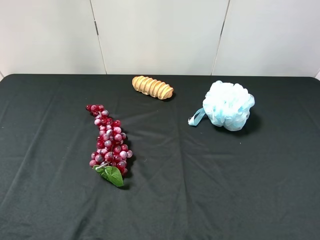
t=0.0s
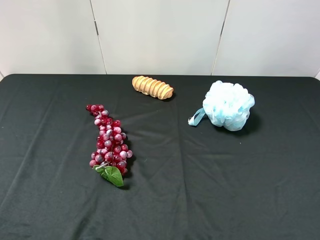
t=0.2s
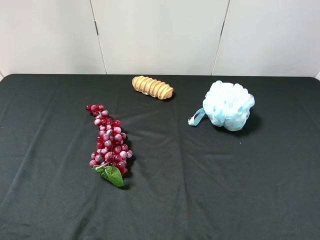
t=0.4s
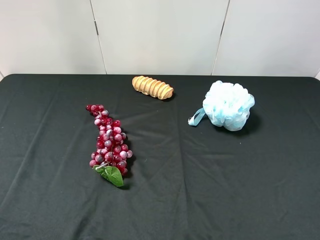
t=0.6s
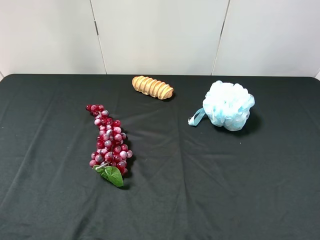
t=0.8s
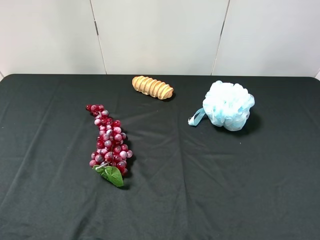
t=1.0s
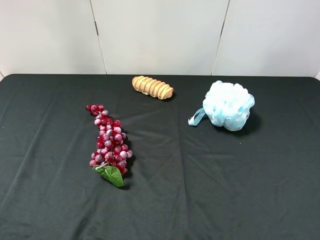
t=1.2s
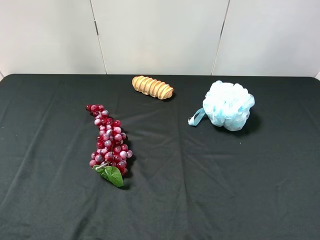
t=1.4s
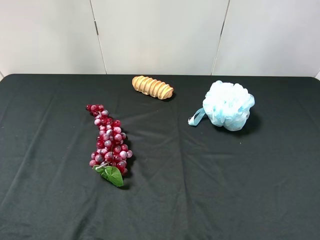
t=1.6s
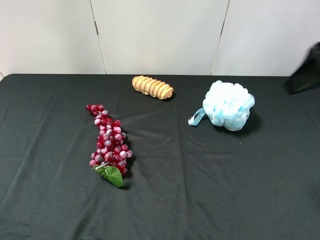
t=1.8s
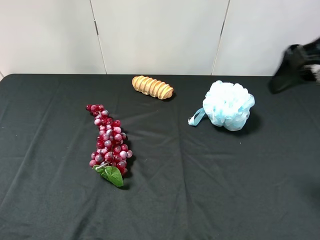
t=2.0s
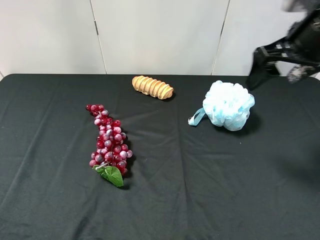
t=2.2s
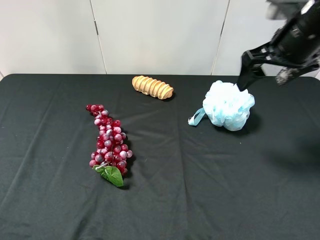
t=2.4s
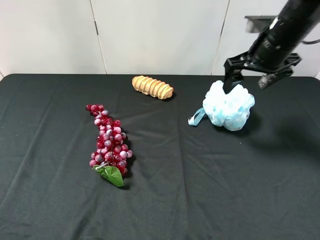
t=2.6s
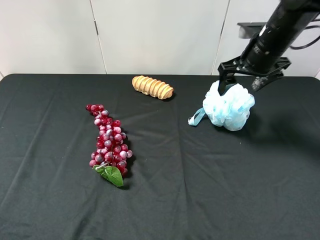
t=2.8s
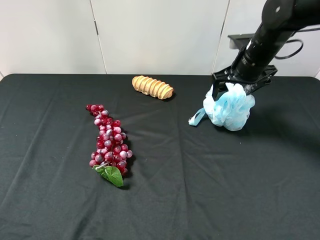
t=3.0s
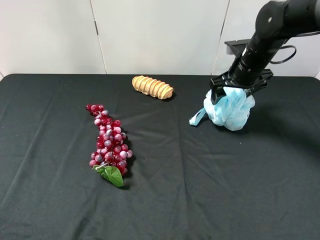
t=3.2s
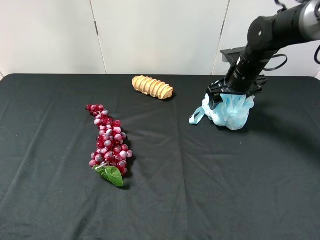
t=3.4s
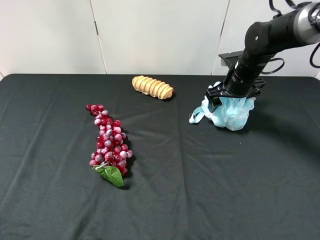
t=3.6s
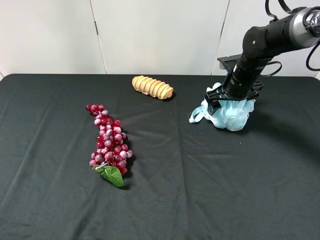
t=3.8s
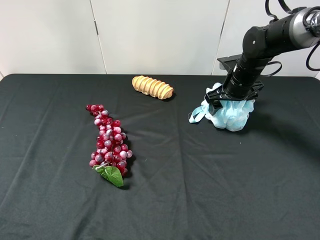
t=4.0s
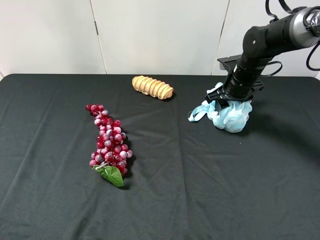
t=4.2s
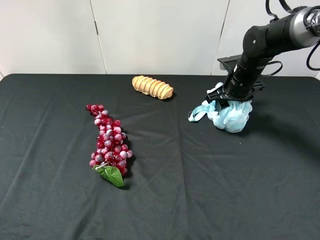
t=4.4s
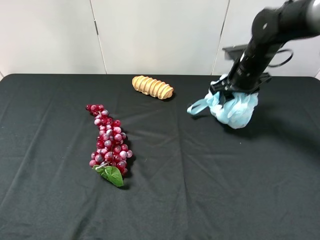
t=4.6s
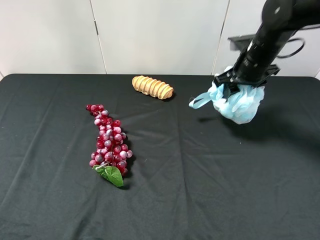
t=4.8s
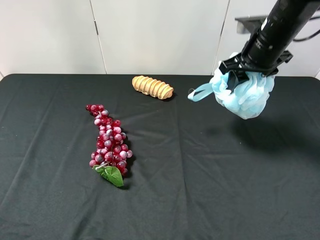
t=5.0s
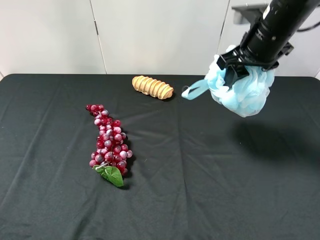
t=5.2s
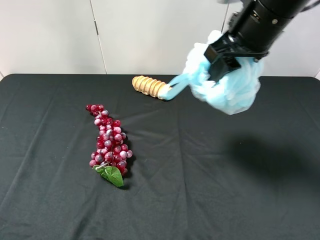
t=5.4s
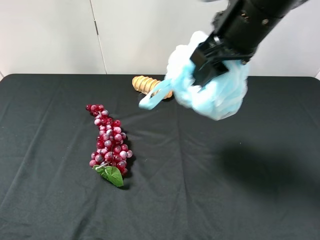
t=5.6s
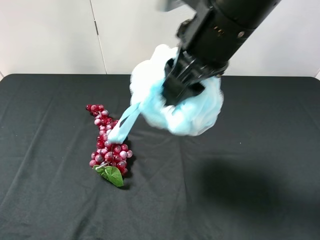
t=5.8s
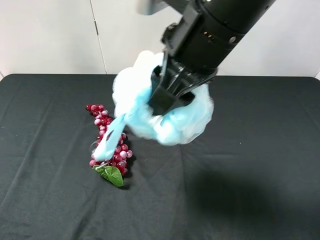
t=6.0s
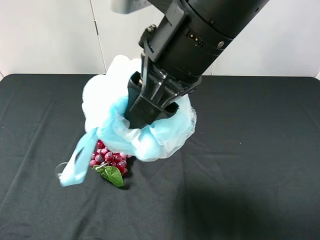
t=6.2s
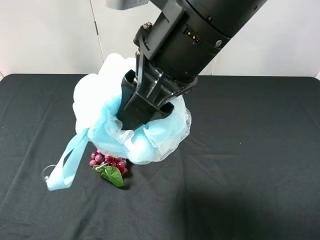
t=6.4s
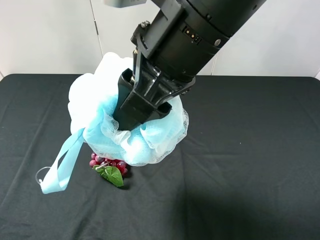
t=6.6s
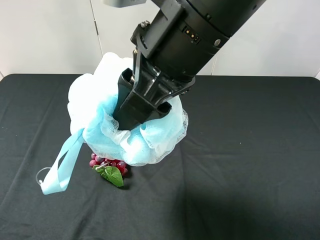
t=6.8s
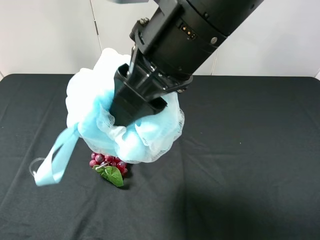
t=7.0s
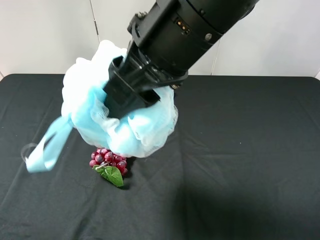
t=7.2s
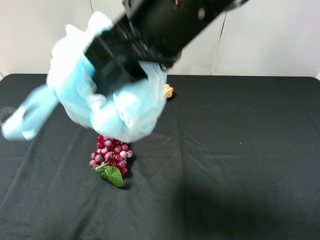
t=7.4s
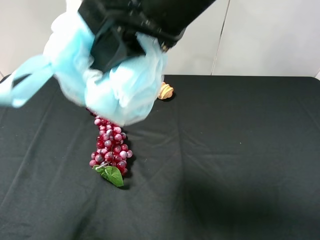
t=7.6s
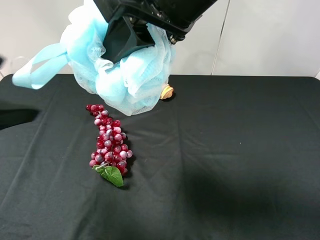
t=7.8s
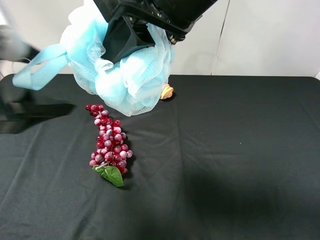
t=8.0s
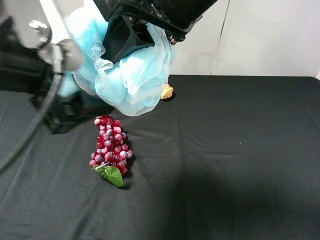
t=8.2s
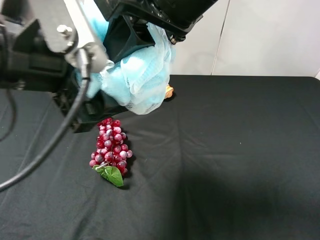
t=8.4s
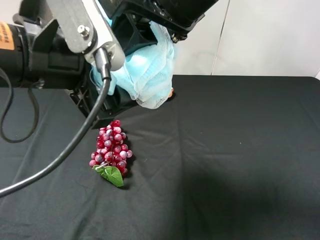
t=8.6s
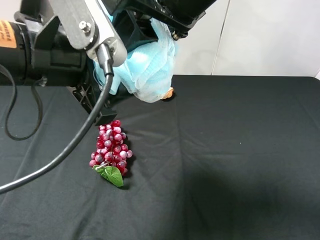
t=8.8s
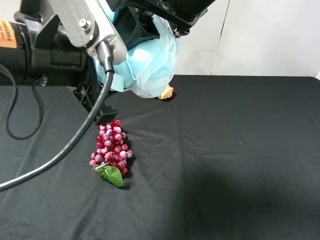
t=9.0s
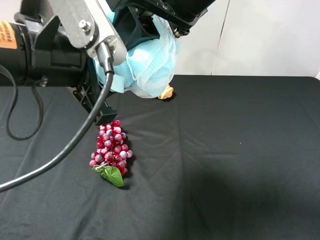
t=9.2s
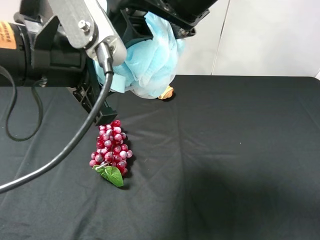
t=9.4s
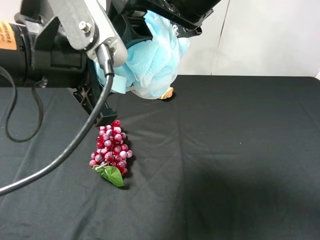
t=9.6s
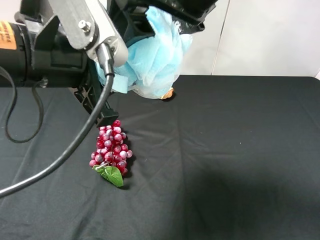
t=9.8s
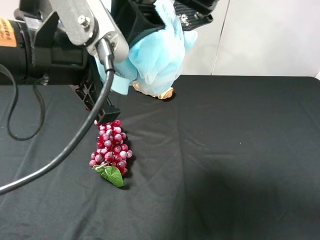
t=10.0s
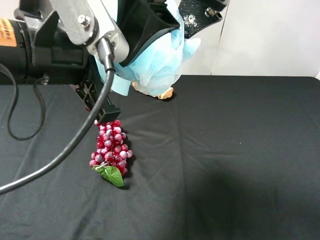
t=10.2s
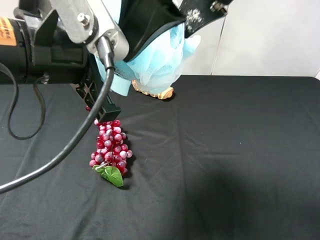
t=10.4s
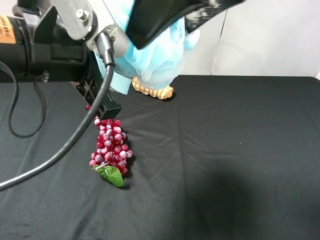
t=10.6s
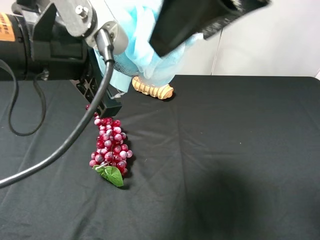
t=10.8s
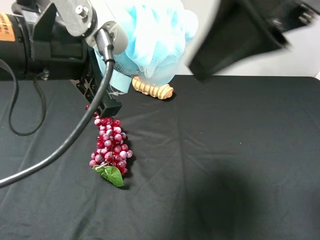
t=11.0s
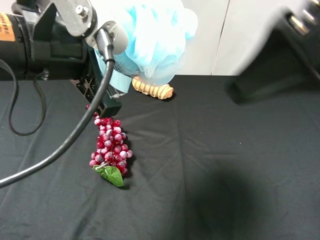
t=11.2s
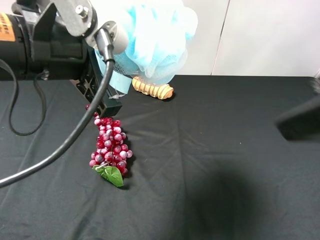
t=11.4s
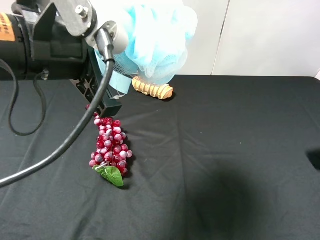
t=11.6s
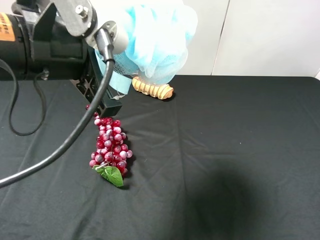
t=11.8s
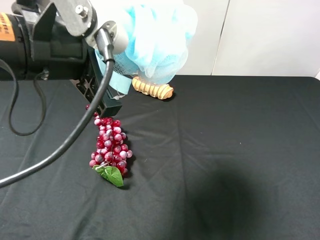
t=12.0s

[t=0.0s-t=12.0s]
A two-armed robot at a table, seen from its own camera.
Task of the whole recording: use the right gripper to pick up the item and transfer it from the right gripper to the left gripper.
Step, t=0.0s to t=4.4s: Use the right gripper to grab the shower sphere on the right side of the table.
Step, t=4.6s to t=11.0s: Pass the shower sphere to the left gripper.
t=1.6s to t=3.0s: The right gripper travels forward and downward by roughly 30 cm.
t=3.0s to t=4.4s: The right gripper travels downward by roughly 5 cm, and closes.
t=4.4s to t=6.0s: The right gripper travels backward, upward and to the left by approximately 30 cm.
t=6.0s to t=7.6s: The left gripper travels forward, upward and to the right by approximately 15 cm.
t=7.6s to t=9.0s: The left gripper shifts roughly 15 cm to the right and forward, and closes its fingers.
t=9.0s to t=10.4s: The right gripper opens its fingers.
t=10.4s to t=12.0s: The right gripper goes roughly 30 cm to the right, backward and downward.

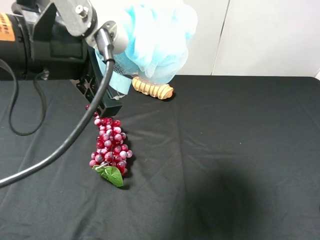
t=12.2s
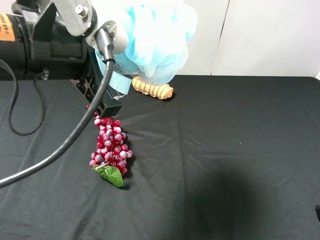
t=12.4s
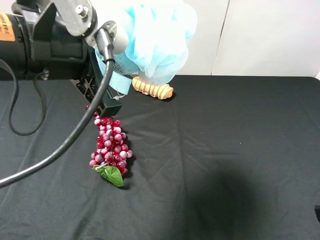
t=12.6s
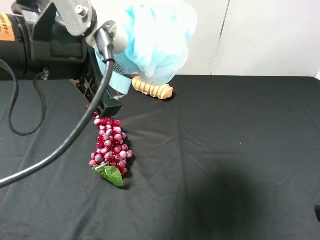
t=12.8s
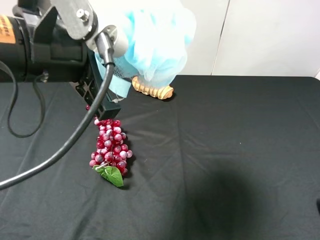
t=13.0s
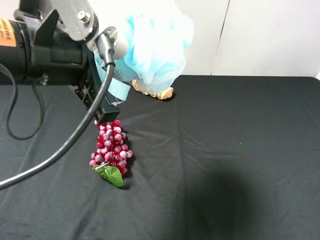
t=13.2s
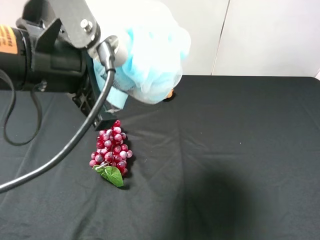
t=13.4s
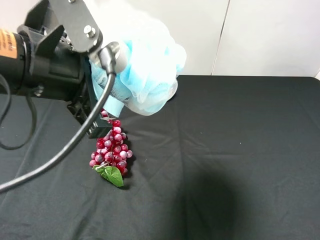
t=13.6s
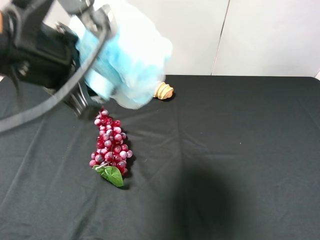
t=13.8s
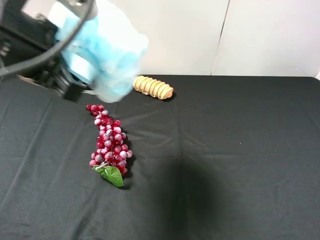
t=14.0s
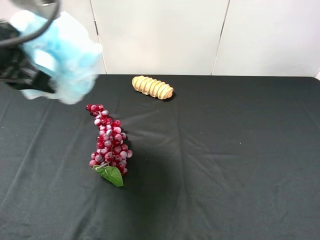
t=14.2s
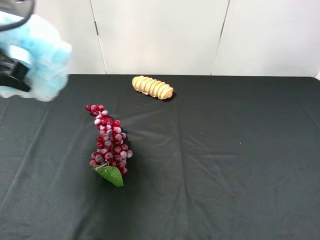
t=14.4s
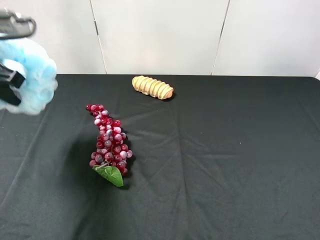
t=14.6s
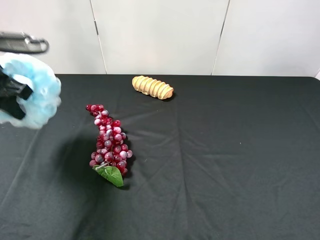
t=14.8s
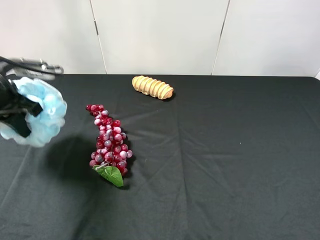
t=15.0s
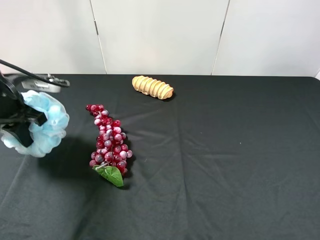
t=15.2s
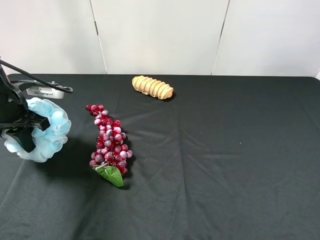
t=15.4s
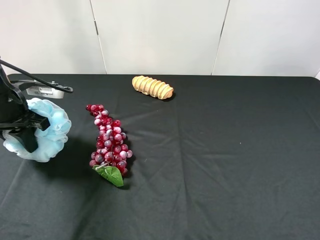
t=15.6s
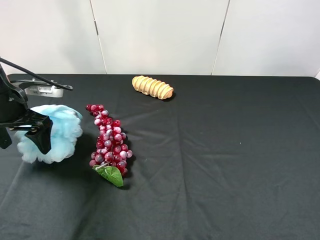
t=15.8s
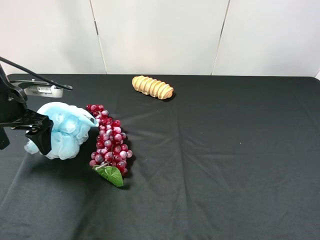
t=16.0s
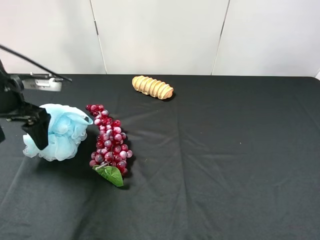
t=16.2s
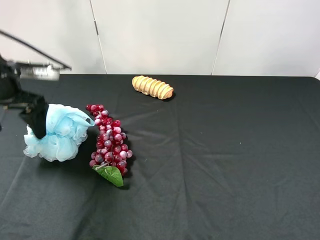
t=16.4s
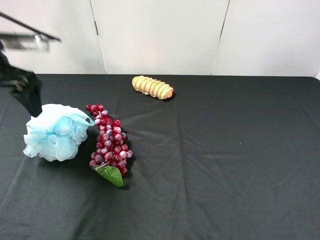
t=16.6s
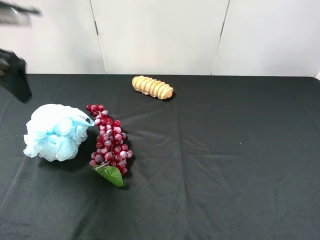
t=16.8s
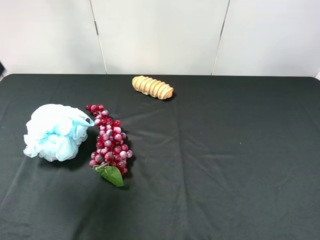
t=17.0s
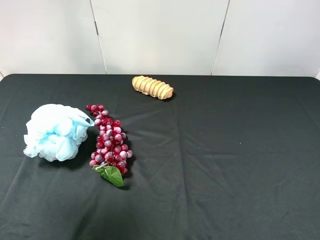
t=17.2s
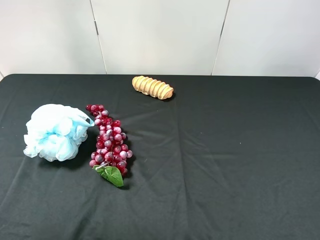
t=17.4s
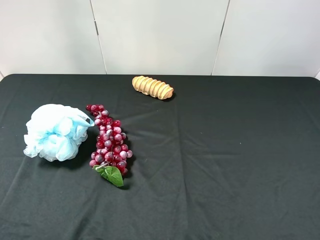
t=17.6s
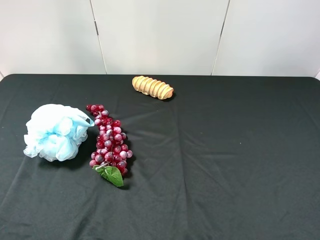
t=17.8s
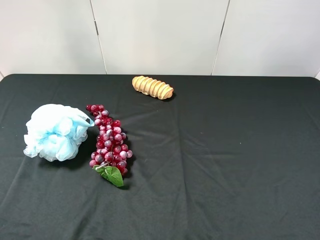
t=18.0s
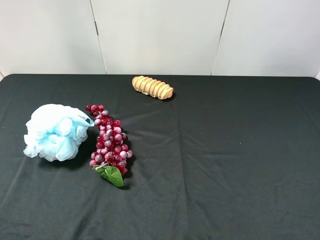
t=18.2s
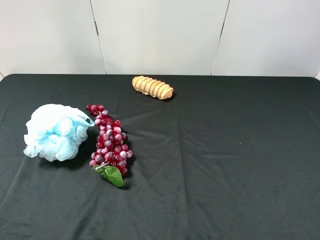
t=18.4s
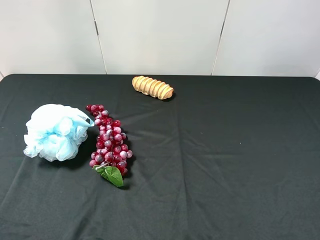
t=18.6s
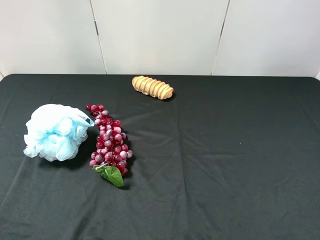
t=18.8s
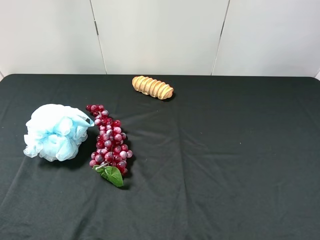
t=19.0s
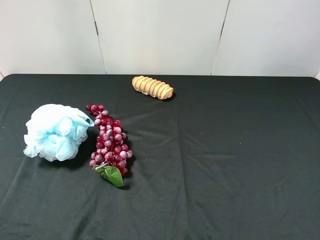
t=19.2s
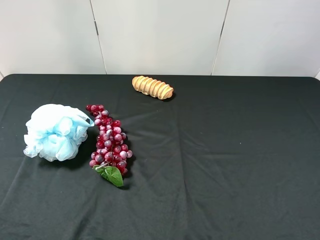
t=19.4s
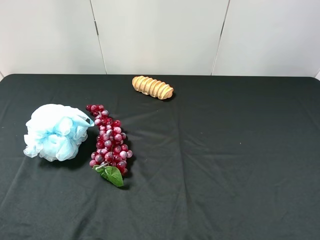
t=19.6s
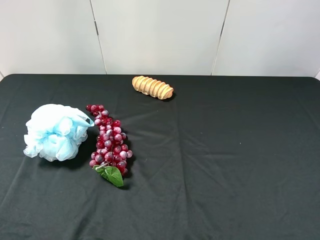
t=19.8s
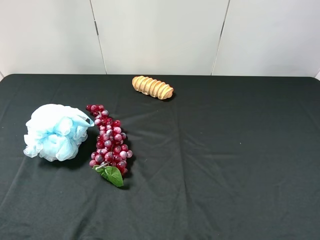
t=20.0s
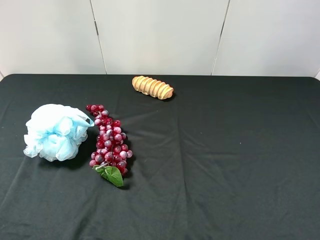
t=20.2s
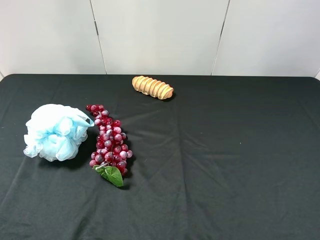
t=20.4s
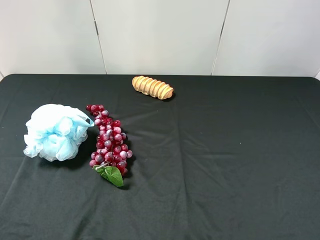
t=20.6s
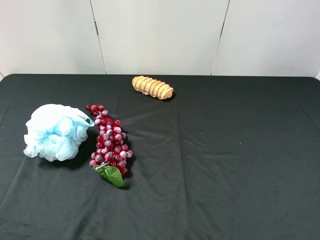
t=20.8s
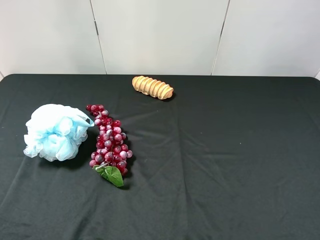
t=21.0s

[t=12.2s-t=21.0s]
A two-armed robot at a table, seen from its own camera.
Task of the whole recording: use the right gripper to pick up the item and transfer it from the right gripper to the left gripper.
Step, t=12.2s to t=16.0s: The left gripper places shower sphere on the left side of the table.
t=13.6s to t=15.2s: The left gripper heads to the left, downward and forward, covering about 25 cm.
t=15.2s to t=16.6s: The left gripper is displaced upward by about 10 cm, and opens.
t=16.6s to t=18.0s: The left gripper is displaced backward by some 25 cm.
t=19.6s to t=21.0s: Both grippers stay put.

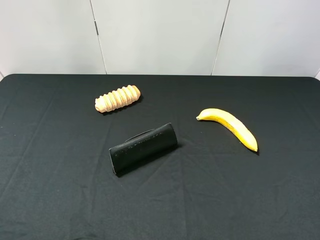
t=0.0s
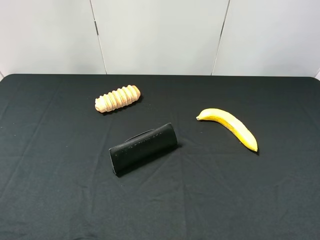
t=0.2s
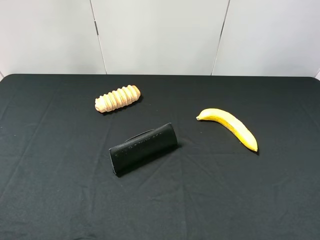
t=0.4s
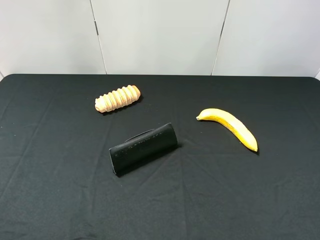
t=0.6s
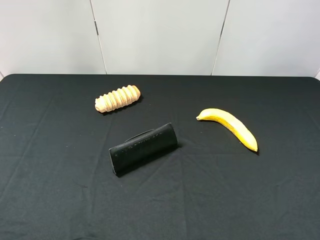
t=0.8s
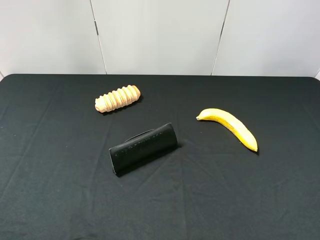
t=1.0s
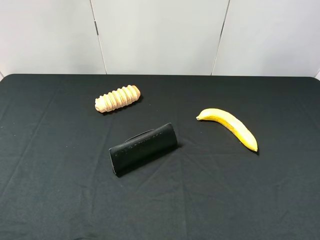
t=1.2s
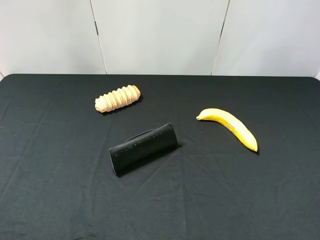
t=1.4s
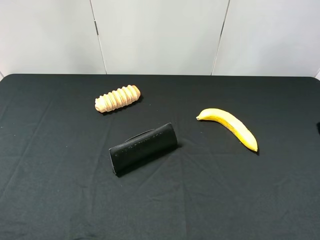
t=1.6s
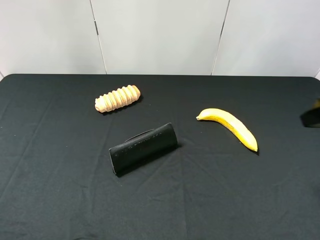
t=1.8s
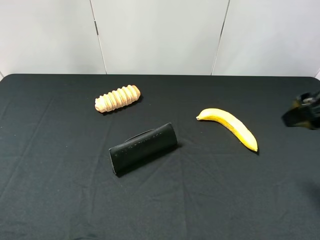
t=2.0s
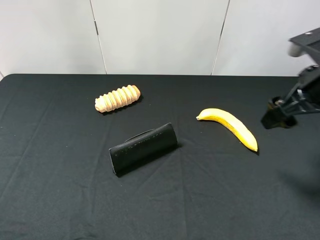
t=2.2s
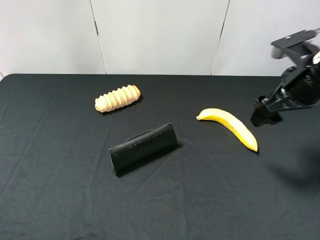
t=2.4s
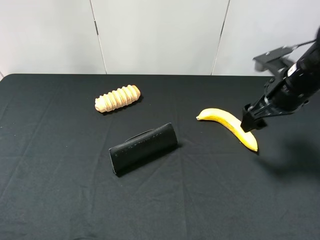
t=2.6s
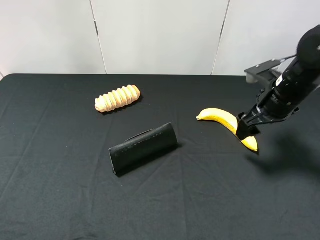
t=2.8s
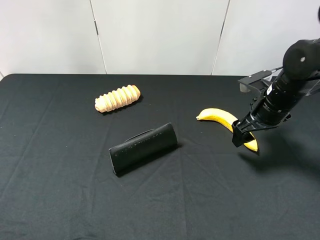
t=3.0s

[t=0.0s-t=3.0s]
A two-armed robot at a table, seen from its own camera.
Task of the whole recording: use the right gripper to pick up the item and transfer it from the right gripper to the left gripper.
t=1.6s to t=3.0s: The right gripper goes approximately 20 cm forward and downward.
